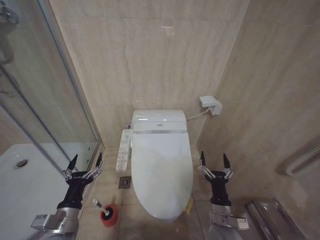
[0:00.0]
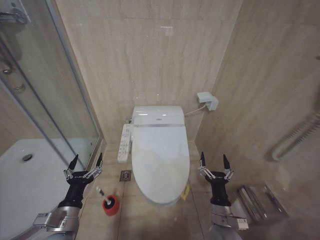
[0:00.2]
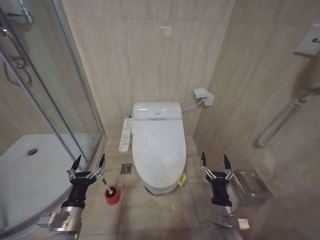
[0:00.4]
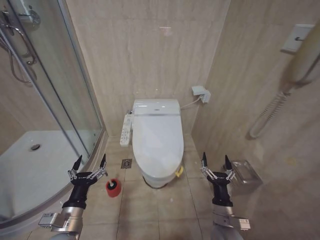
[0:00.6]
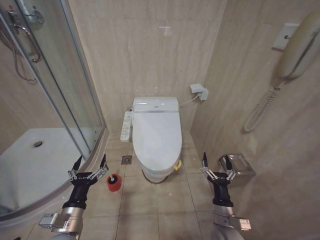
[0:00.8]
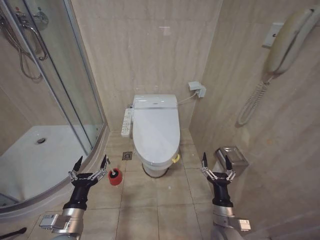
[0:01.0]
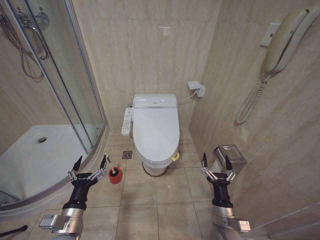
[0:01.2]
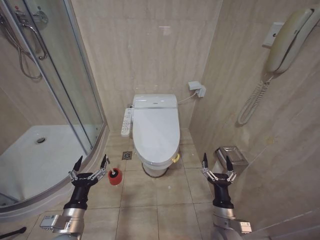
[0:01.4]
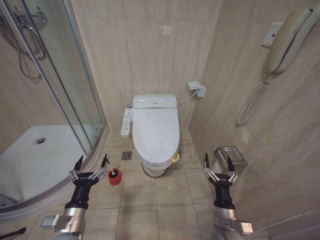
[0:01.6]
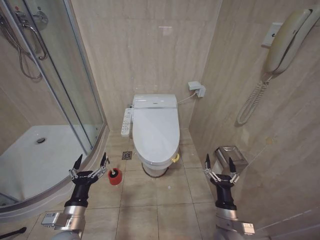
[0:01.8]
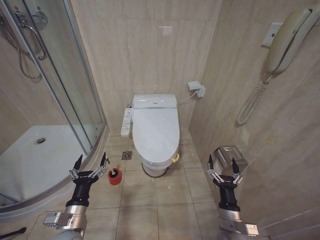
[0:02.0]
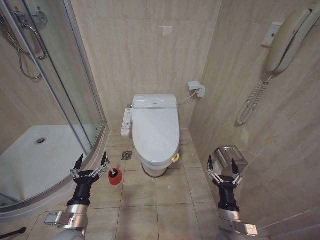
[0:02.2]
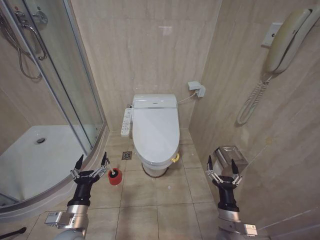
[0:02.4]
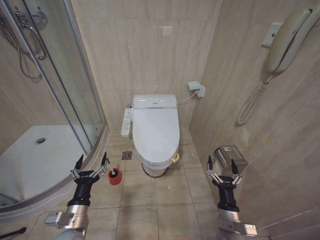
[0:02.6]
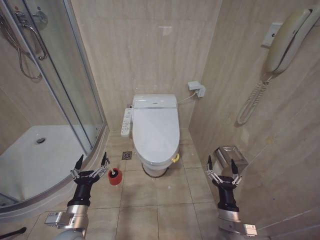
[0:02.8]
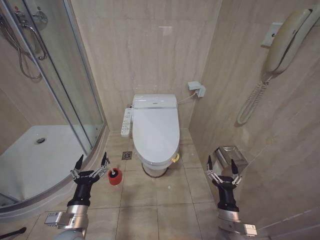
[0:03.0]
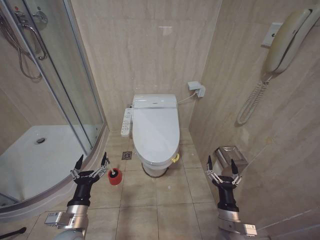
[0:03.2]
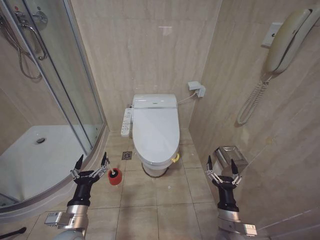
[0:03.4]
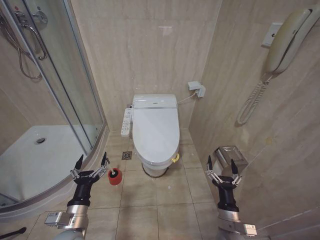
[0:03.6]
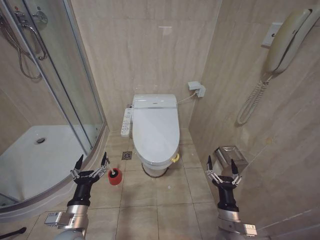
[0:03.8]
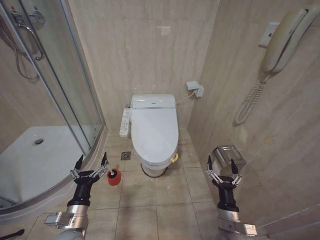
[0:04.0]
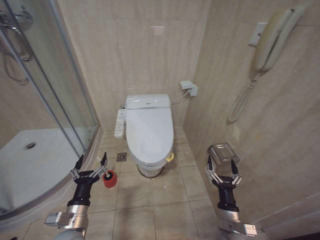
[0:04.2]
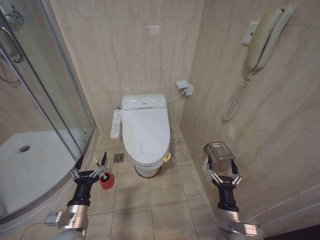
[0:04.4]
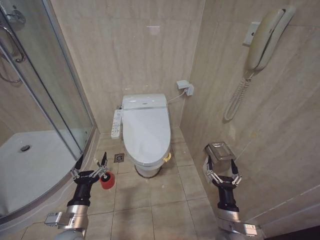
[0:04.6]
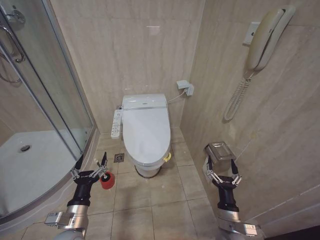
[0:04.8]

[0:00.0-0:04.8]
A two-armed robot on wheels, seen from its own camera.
Task of the whole recording: Open the toilet lid, clean the toilet bowl with a toilet brush, close the toilet lid, and flush.
0:01.6 to 0:03.2: There are only small adjustments of the grippers.
0:03.2 to 0:04.8: Neither gripper changes place.
